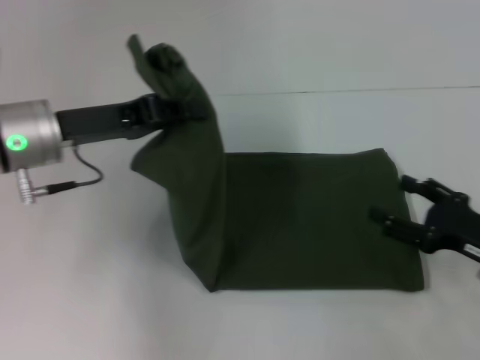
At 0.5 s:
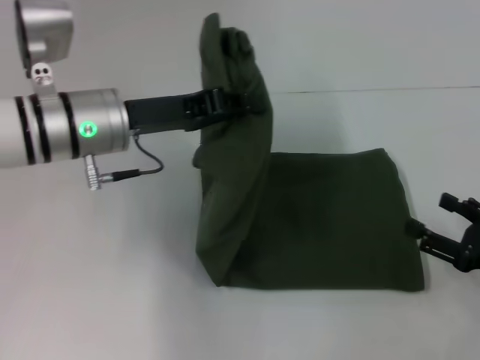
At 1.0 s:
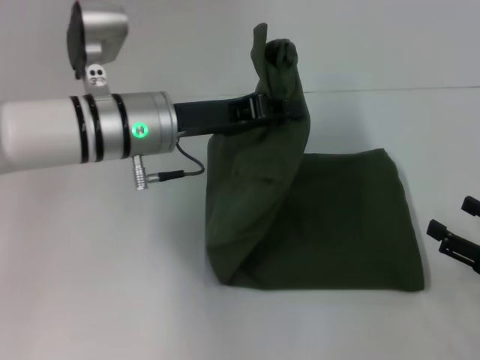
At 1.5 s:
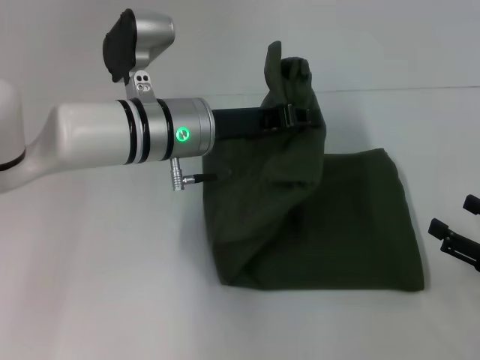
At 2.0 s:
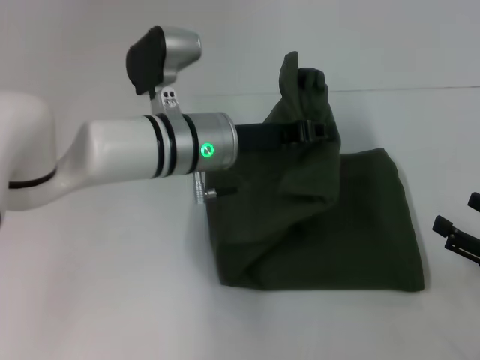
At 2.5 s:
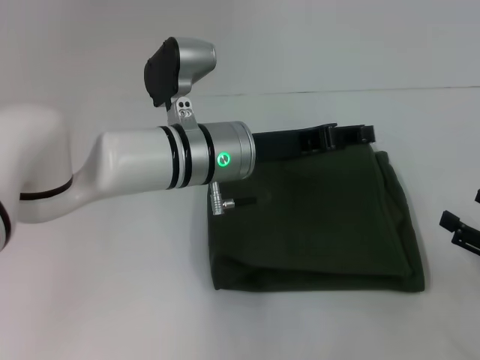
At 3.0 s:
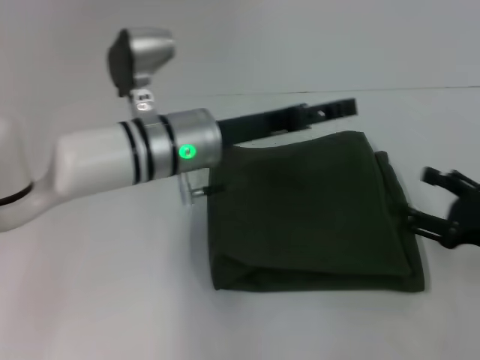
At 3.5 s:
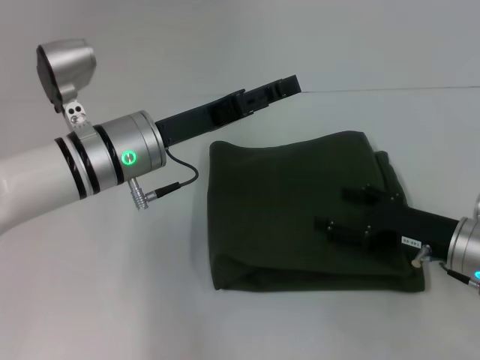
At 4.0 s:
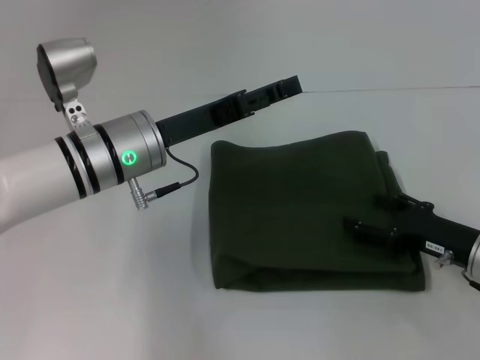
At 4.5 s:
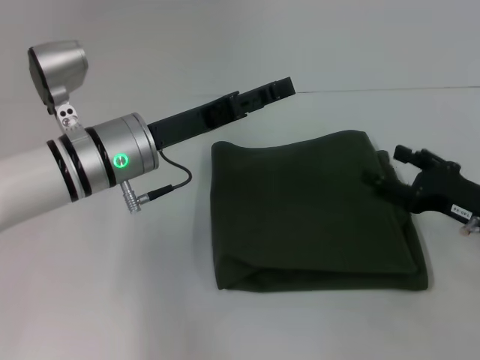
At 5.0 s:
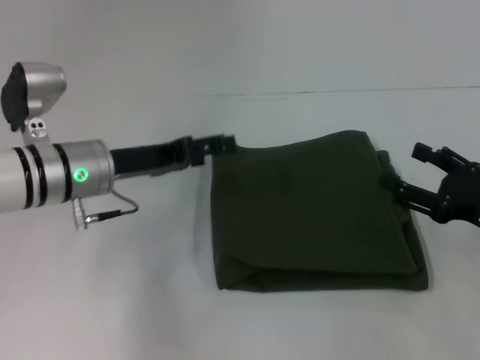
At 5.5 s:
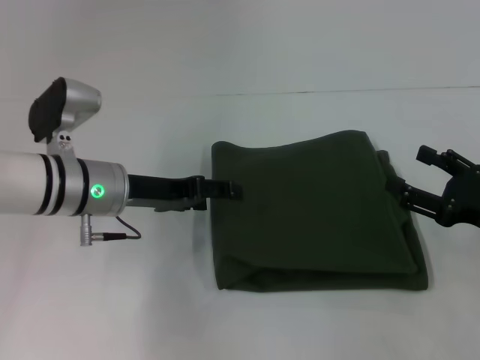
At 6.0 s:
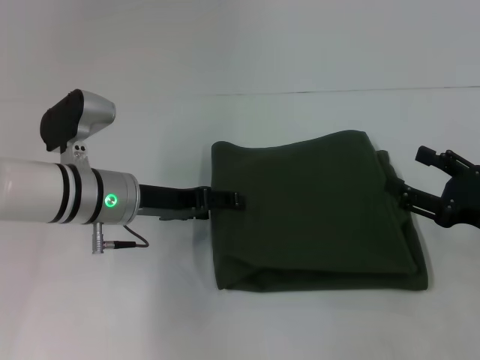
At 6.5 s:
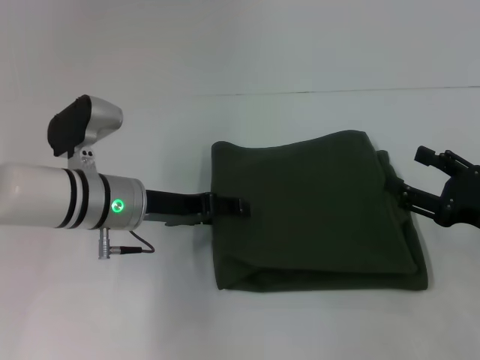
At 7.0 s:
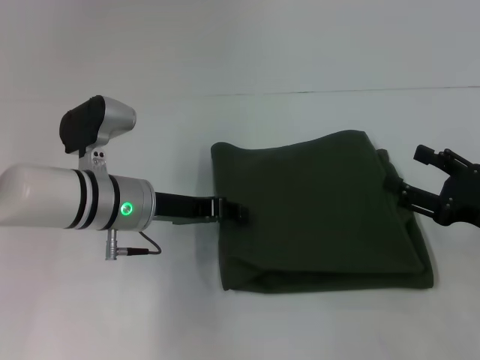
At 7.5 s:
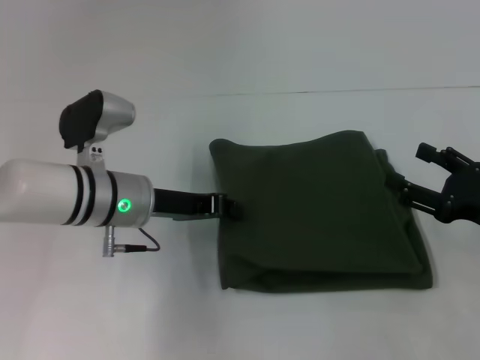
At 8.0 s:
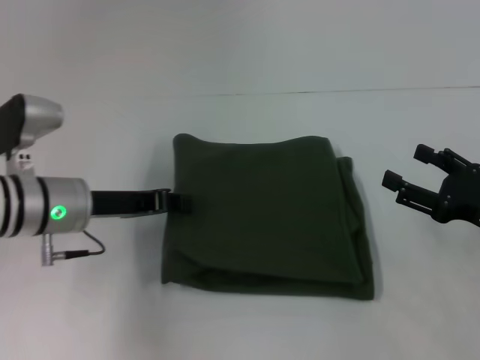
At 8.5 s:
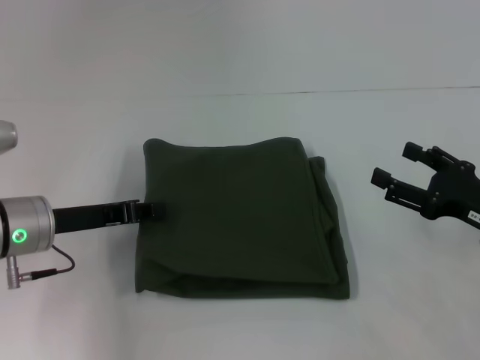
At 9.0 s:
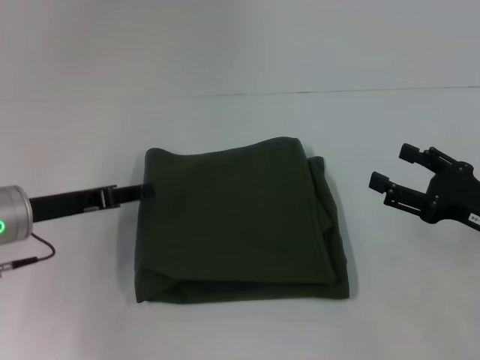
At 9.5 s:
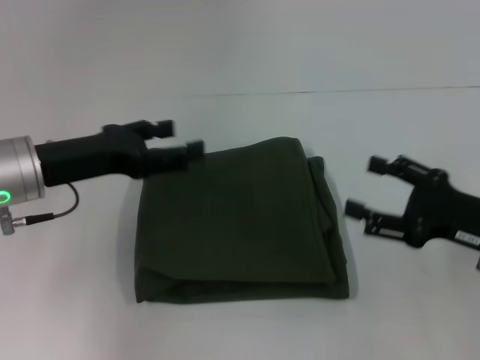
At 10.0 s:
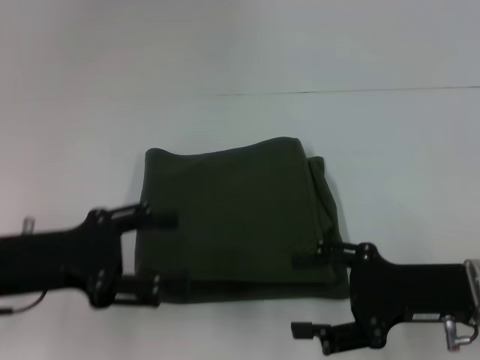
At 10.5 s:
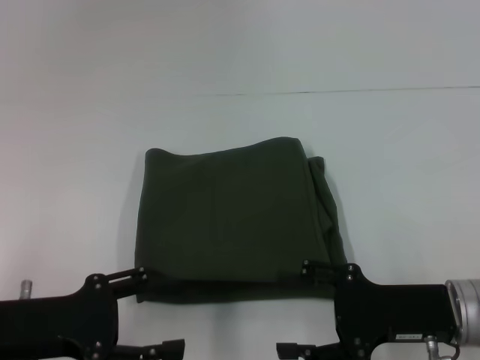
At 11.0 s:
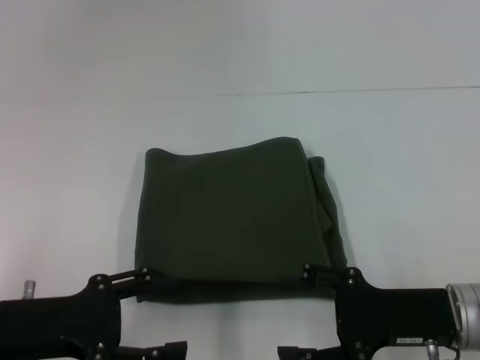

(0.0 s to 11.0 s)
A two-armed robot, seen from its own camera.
Step, 0.0 s - 2.5 s: Fold the clothes with your left hand.
0.0 s - 2.0 s: The right gripper changes place by roughly 5 cm. The left gripper shifts approximately 15 cm to the right.
2.0 s - 3.5 s: The left gripper heads to the left, covering approximately 5 cm, and opens its fingers. Meanwhile the right gripper travels to the left and forward by some 10 cm.
3.5 s - 5.5 s: The left gripper changes place by roughly 5 cm. The right gripper is displaced to the right by about 5 cm.
5.5 s - 7.5 s: The left gripper closes its fingers.
7.5 s - 9.0 s: The left gripper is displaced to the left by roughly 10 cm.
9.0 s - 11.0 s: The right gripper travels to the left by roughly 10 cm, while the left gripper is displaced backward by about 10 cm, and opens its fingers.
